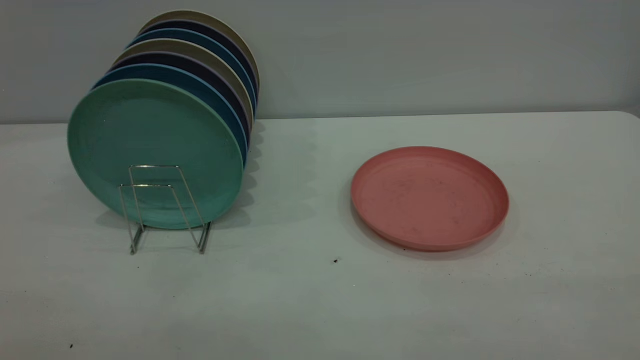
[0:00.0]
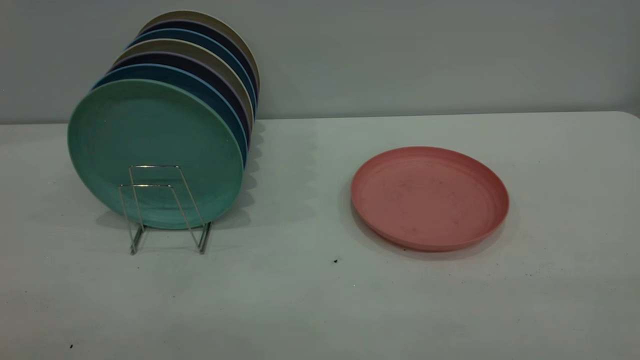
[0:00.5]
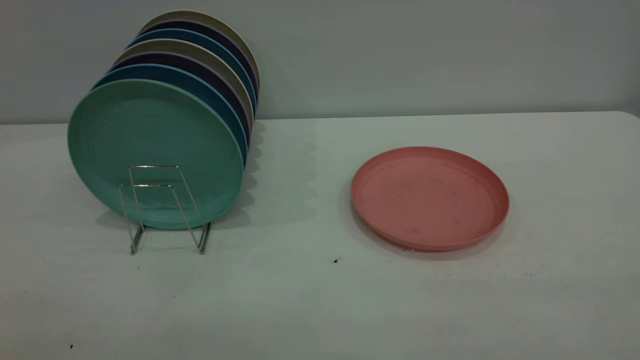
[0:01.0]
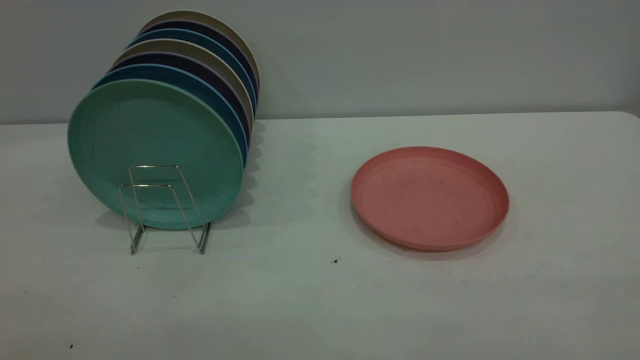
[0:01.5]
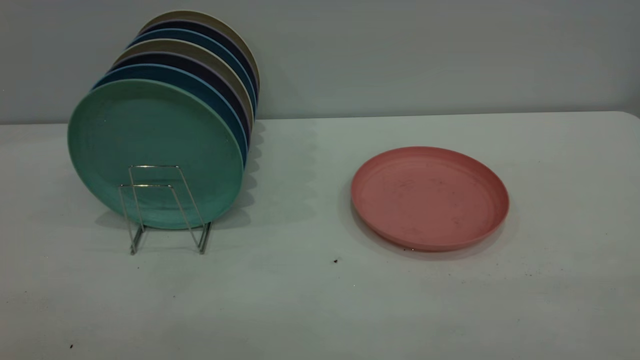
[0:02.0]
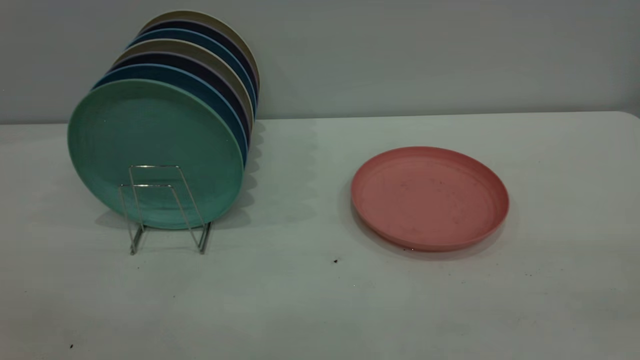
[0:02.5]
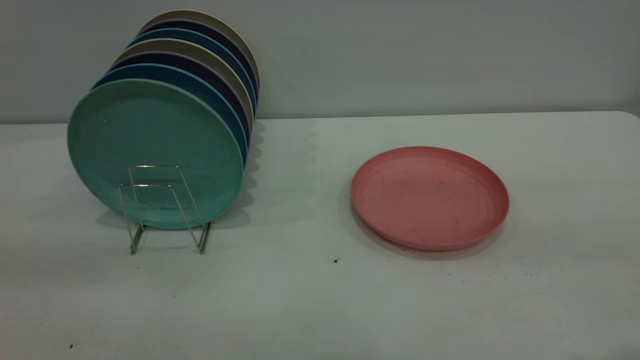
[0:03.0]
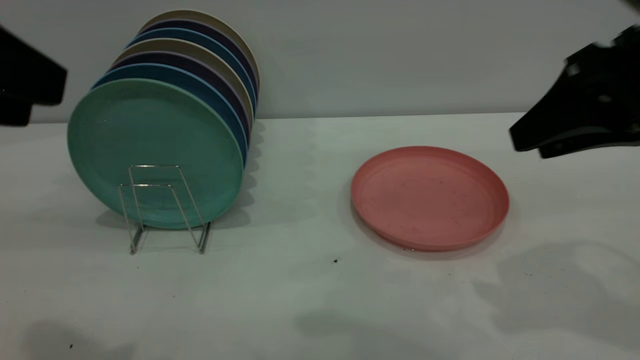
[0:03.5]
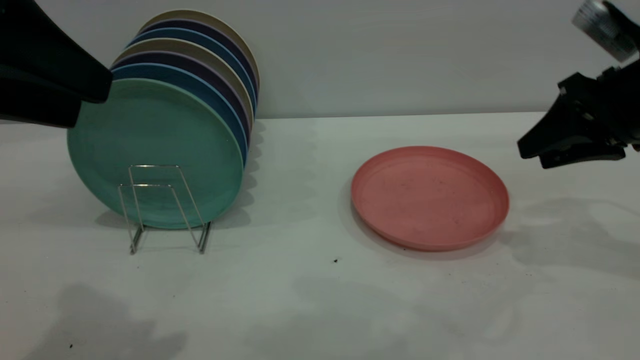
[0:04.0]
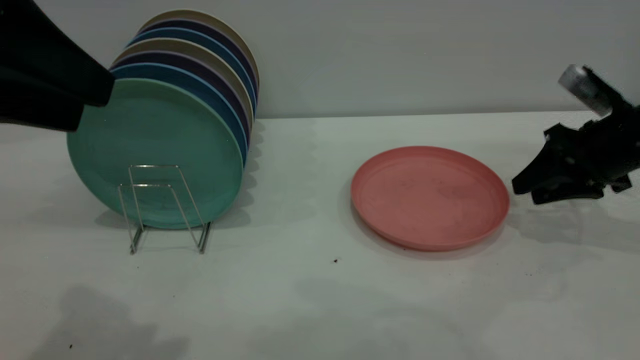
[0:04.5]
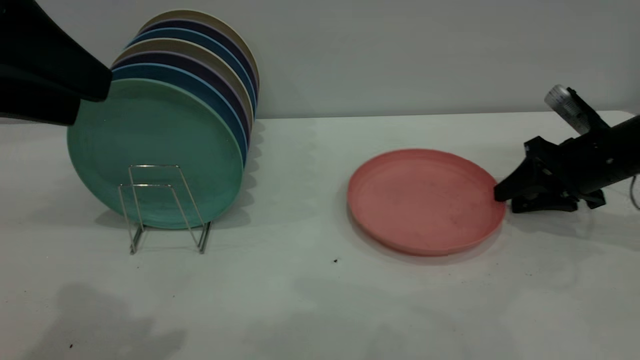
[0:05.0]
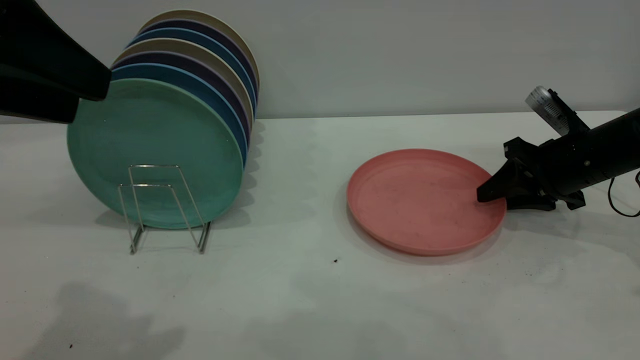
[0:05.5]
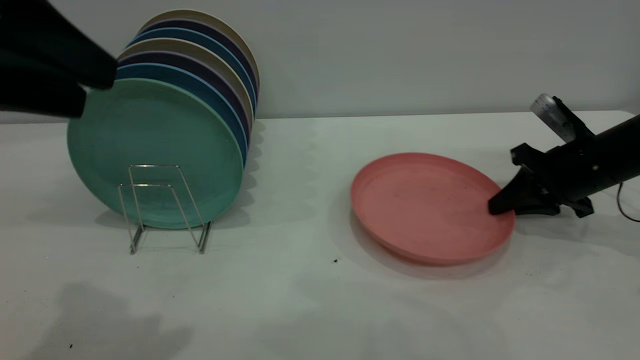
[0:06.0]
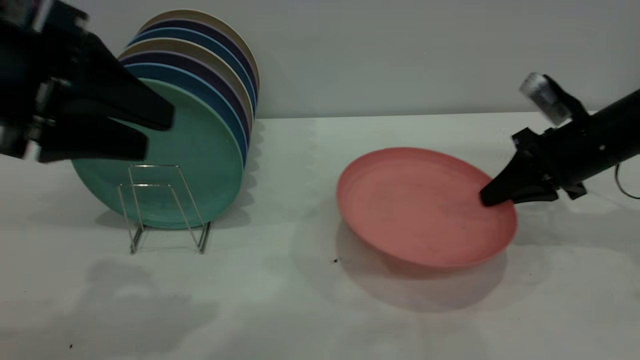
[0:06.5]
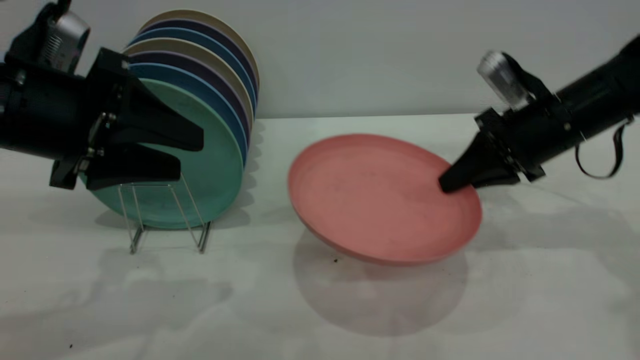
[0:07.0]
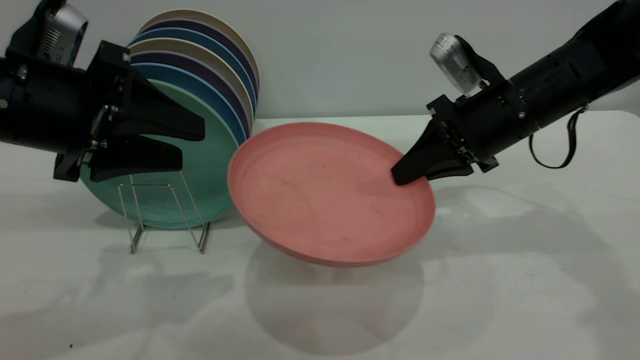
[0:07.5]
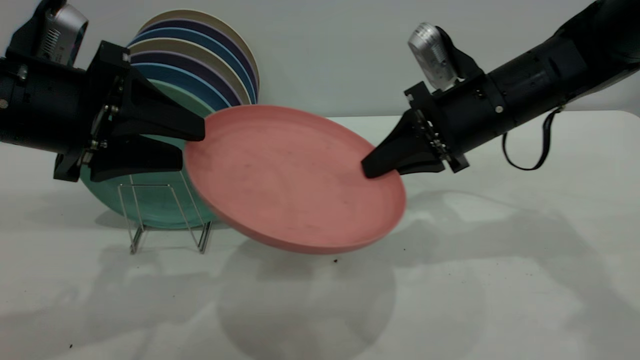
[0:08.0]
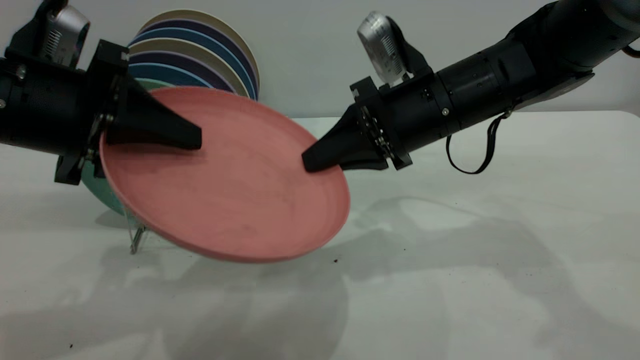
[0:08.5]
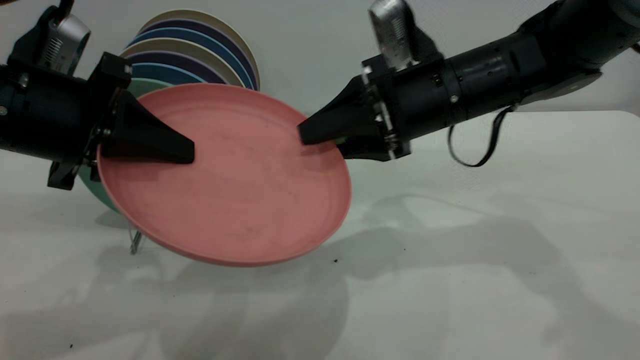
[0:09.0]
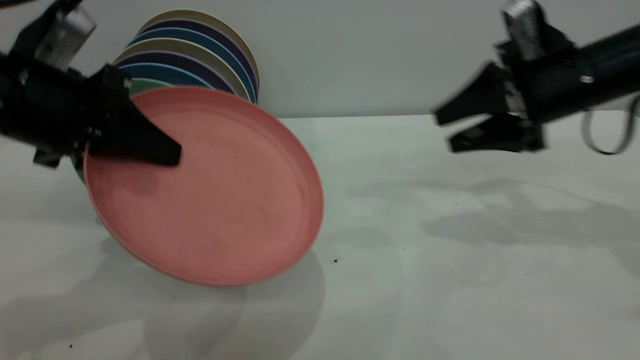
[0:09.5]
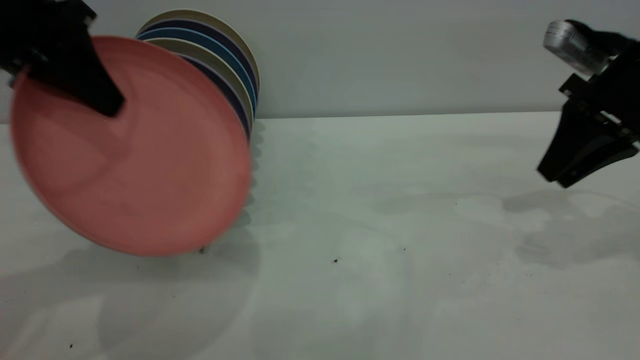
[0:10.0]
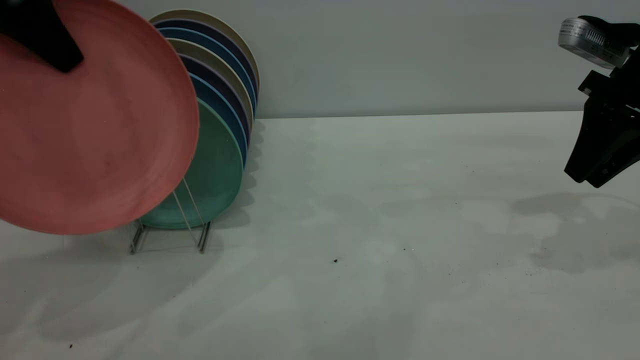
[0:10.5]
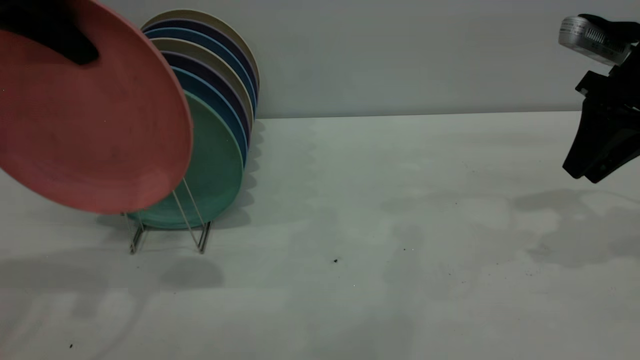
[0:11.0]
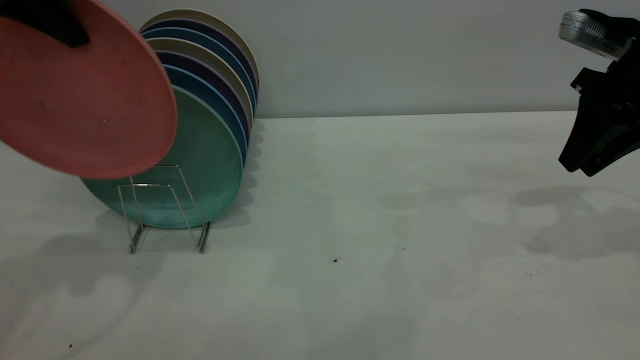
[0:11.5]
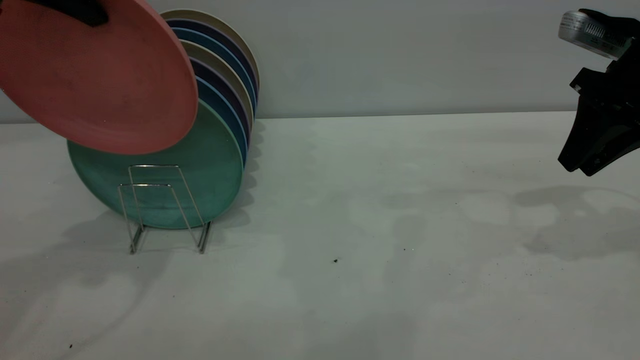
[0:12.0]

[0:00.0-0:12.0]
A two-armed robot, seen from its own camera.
Task of the whole recording: the right gripper grasp the pink plate, the right gripper pass the pink plate to the left gripper, and the left gripper place the pink plate on the plate rack.
Step, 0:00.0 to 0:06.5: Pick up the plate with the right gripper.
Step, 0:07.0 to 0:09.0: Pass the plate from the right gripper to the left gripper.
0:00.0 to 0:02.0: Both grippers stay put.
0:02.0 to 0:04.0: The left gripper moves forward, roughly 25 cm. Meanwhile the right gripper heads forward, covering approximately 40 cm.
0:04.0 to 0:06.0: The right gripper is displaced downward and forward by roughly 10 cm, and closes its fingers.
0:06.0 to 0:08.0: The right gripper shifts some 15 cm to the left and upward. Meanwhile the left gripper shifts approximately 10 cm downward and forward.
0:08.0 to 0:10.0: The right gripper travels to the right by some 15 cm, and opens up, while the left gripper goes about 10 cm upward and forward, and closes up.
0:10.0 to 0:12.0: The left gripper heads upward, covering roughly 5 cm.

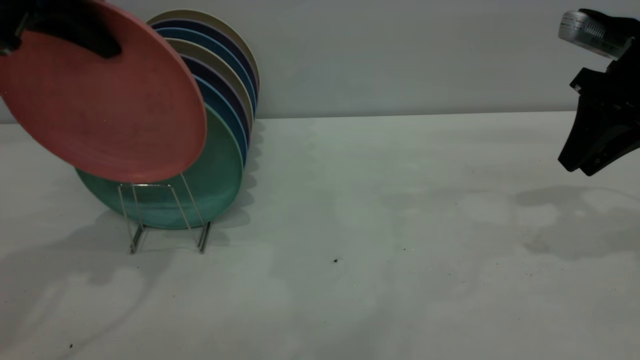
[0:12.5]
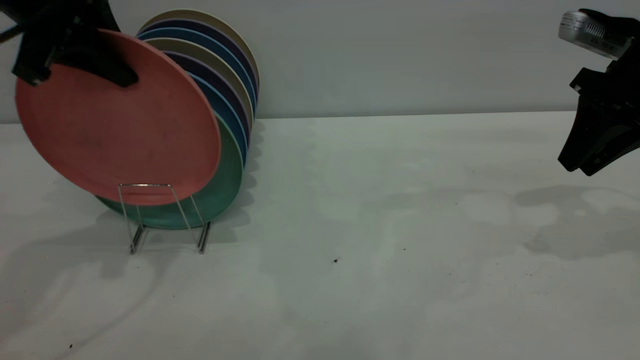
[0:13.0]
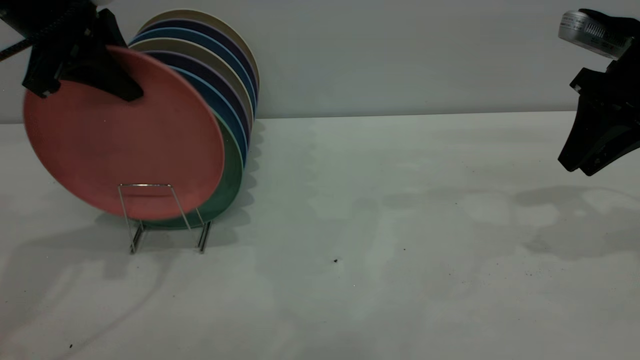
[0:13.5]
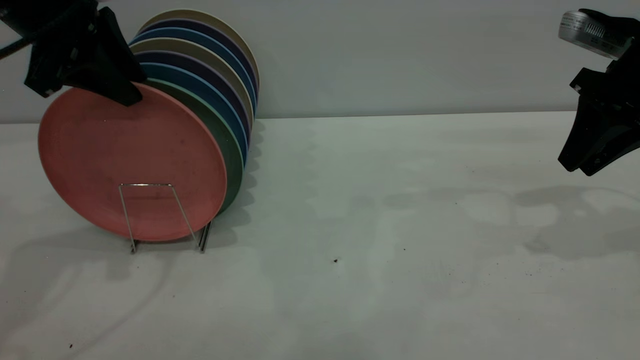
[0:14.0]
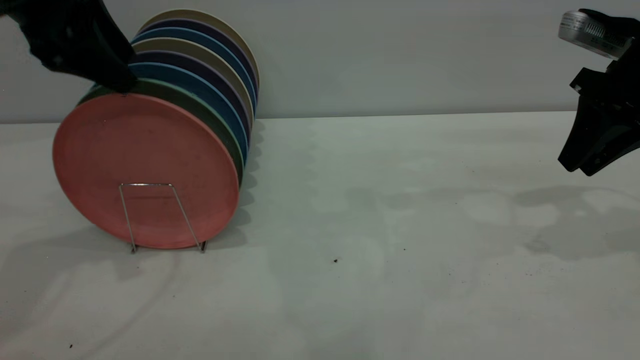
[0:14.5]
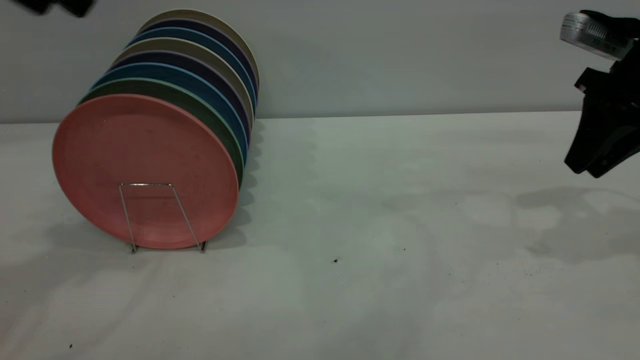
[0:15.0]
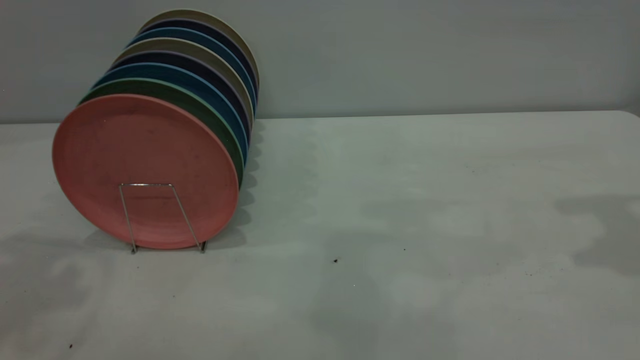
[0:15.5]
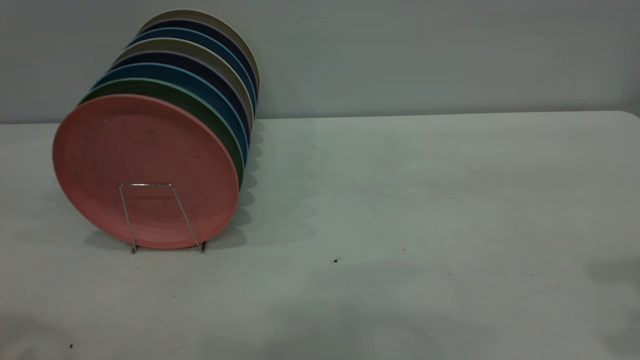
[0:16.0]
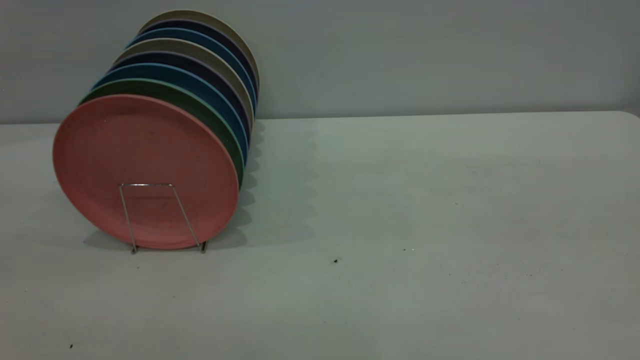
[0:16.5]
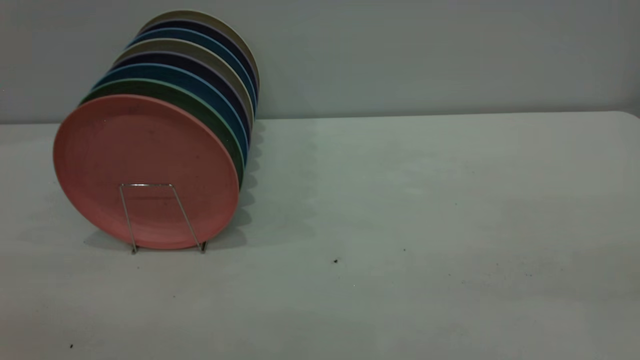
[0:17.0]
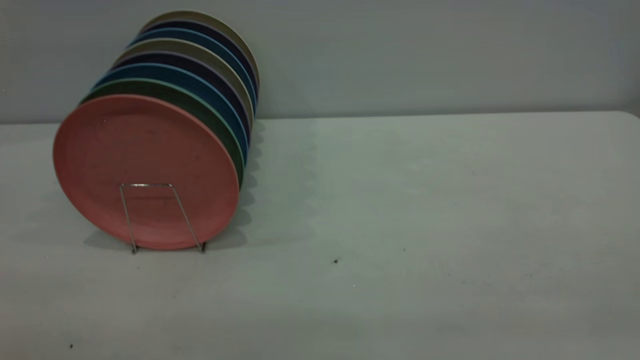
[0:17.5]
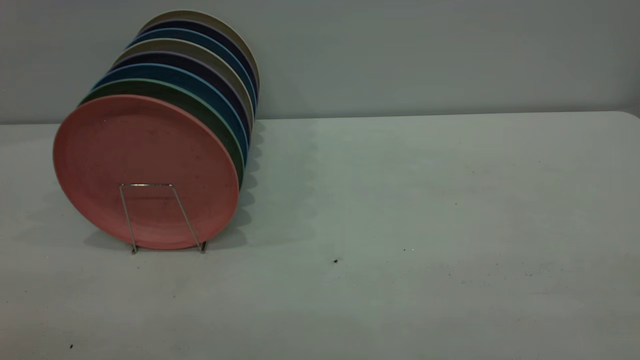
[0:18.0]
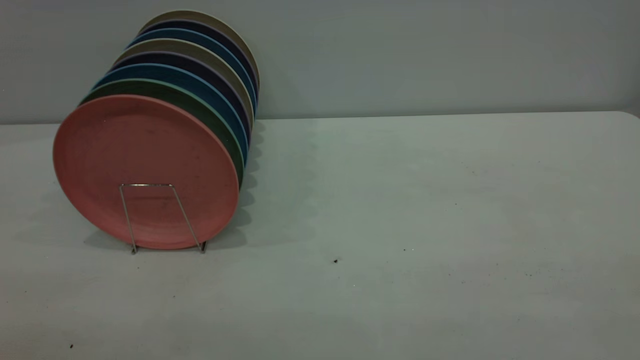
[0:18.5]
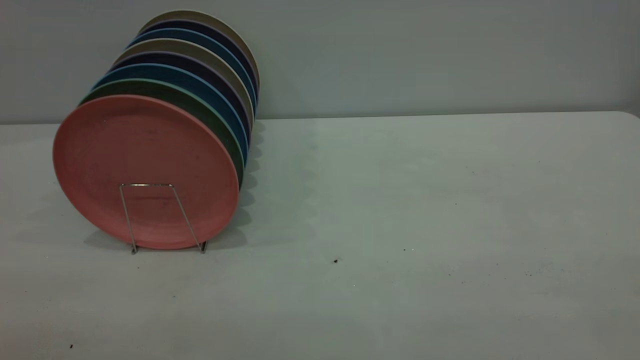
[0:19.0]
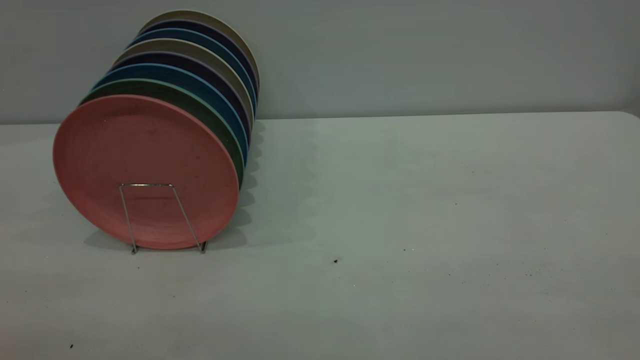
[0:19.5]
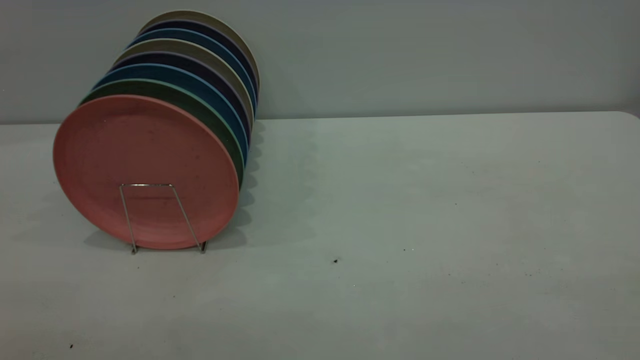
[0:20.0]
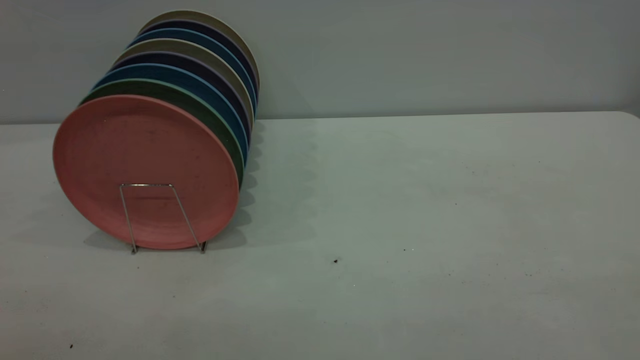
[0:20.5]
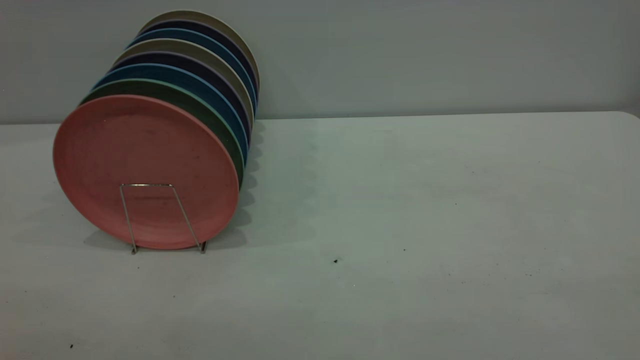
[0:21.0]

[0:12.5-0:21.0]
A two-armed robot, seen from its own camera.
Task of the whole recording: the right gripper grasp the pink plate, the right gripper pass the pink plate to the left gripper, and the left gripper place the pink plate on the plate rack.
Step, 0:12.5 to 0:14.5: Place the plate on the shelf.
0:12.5 to 0:14.5: The left gripper opens.
0:14.5 to 0:16.5: The right gripper is displaced backward and upward by about 35 cm, while the left gripper shifts roughly 30 cm backward.
